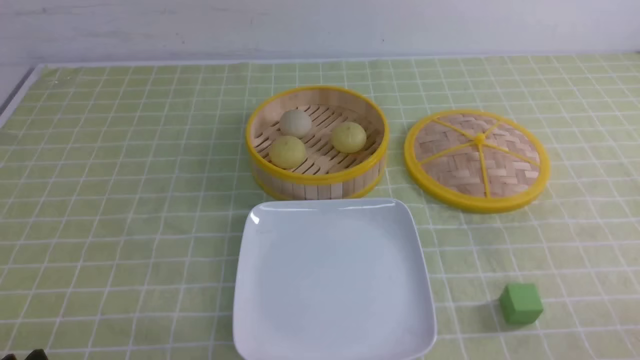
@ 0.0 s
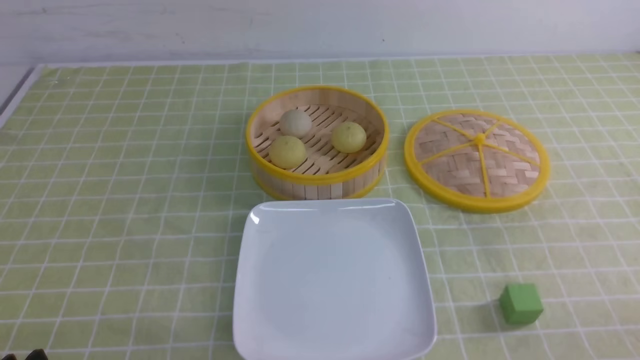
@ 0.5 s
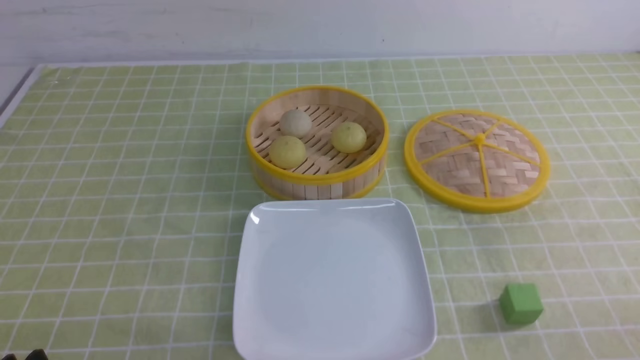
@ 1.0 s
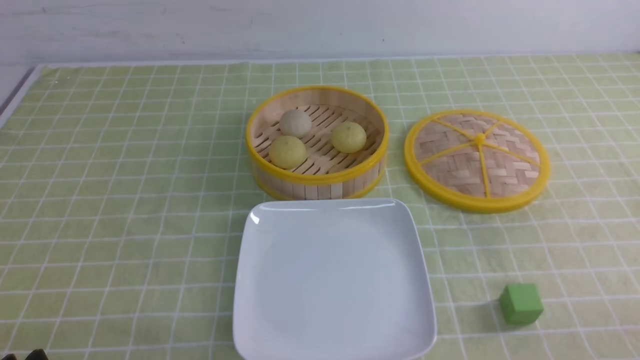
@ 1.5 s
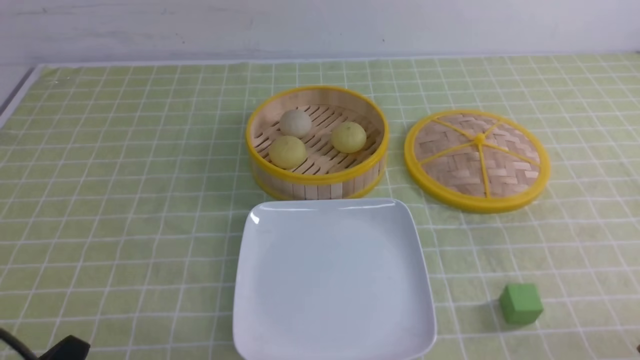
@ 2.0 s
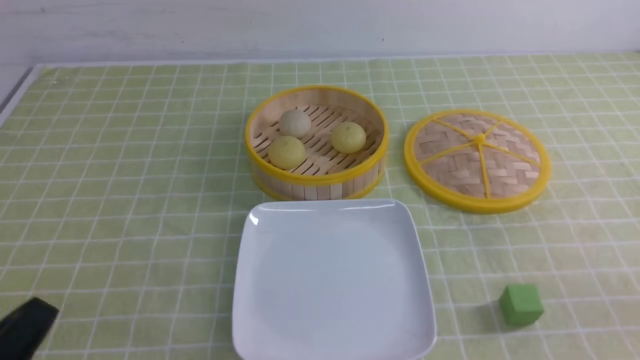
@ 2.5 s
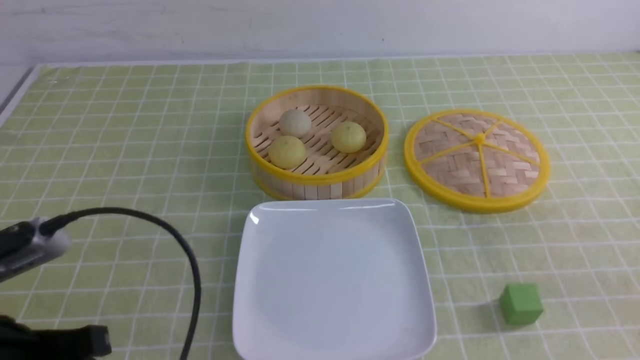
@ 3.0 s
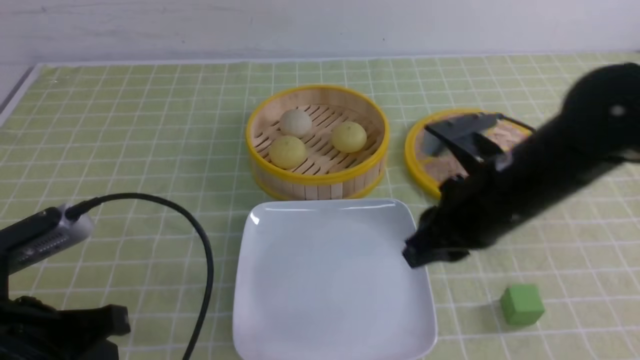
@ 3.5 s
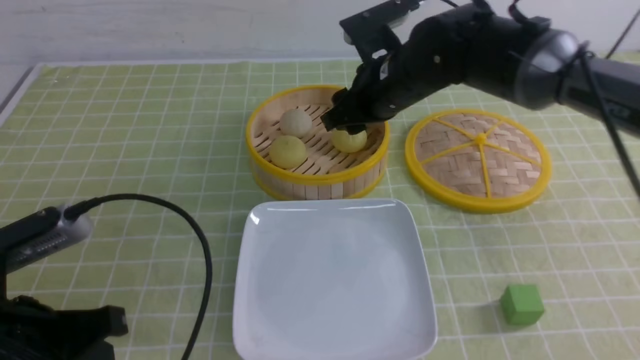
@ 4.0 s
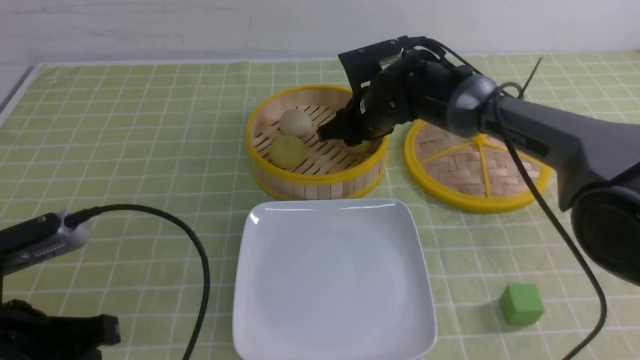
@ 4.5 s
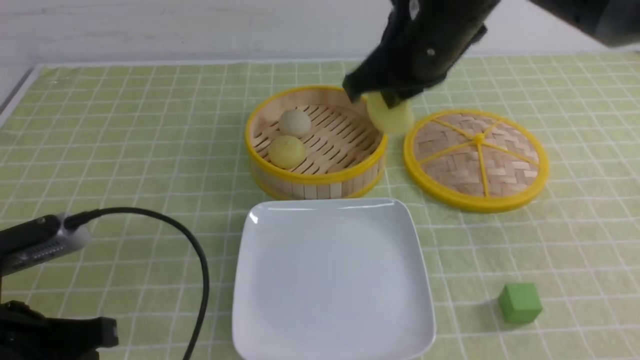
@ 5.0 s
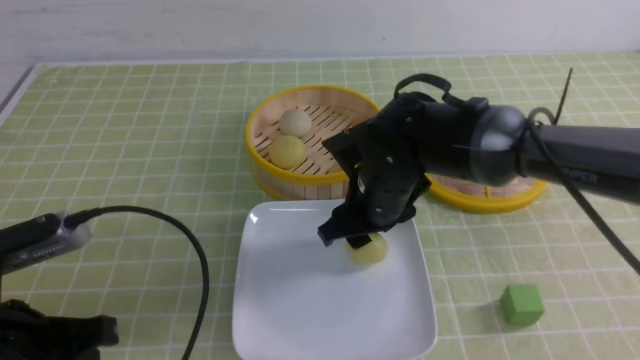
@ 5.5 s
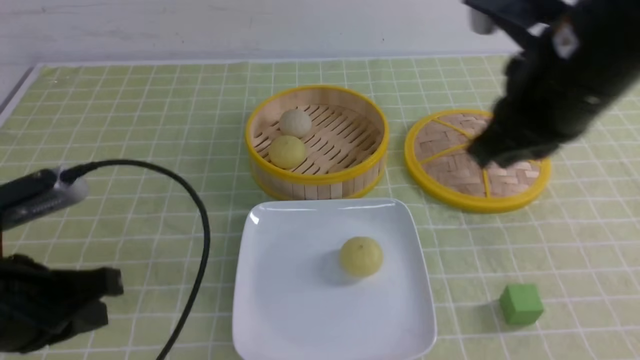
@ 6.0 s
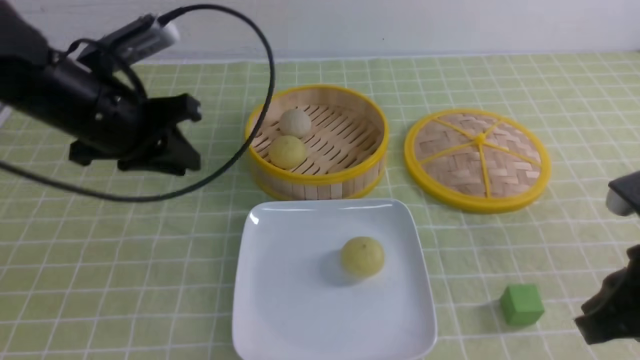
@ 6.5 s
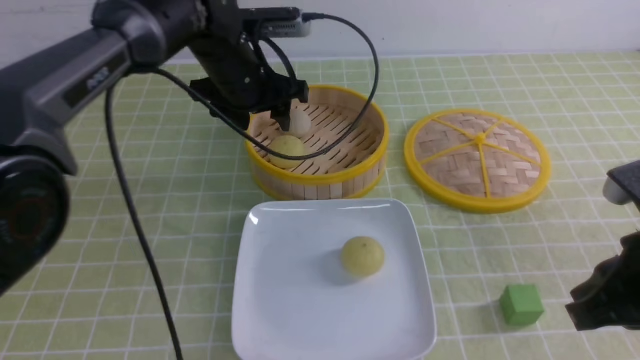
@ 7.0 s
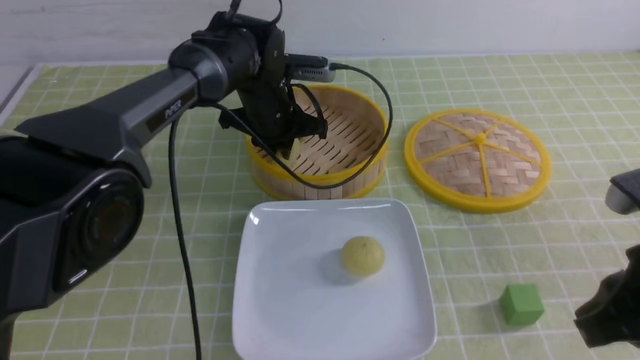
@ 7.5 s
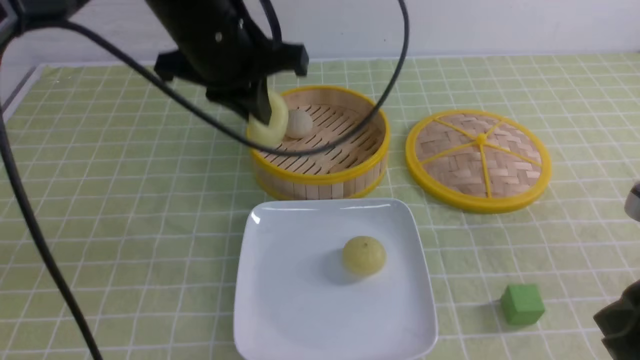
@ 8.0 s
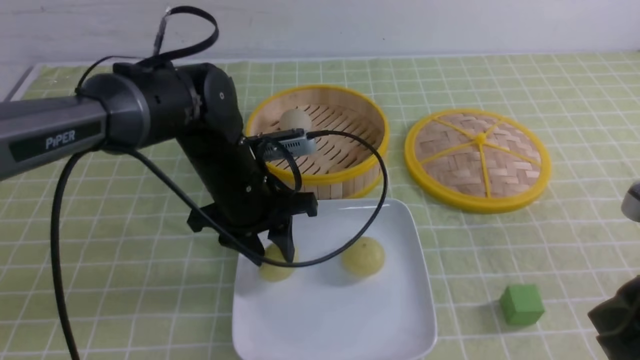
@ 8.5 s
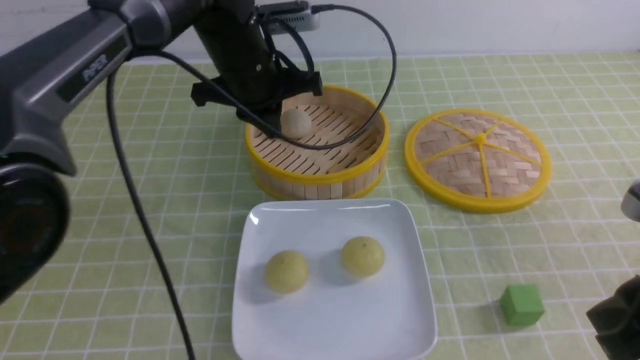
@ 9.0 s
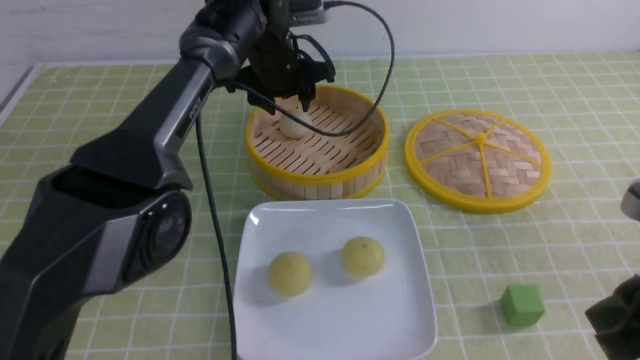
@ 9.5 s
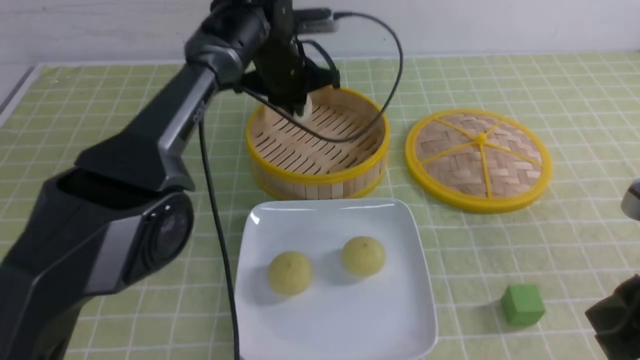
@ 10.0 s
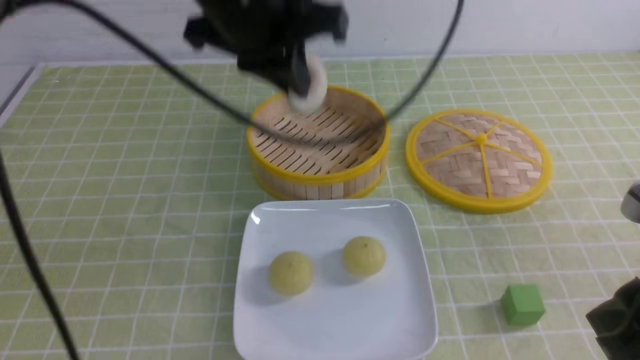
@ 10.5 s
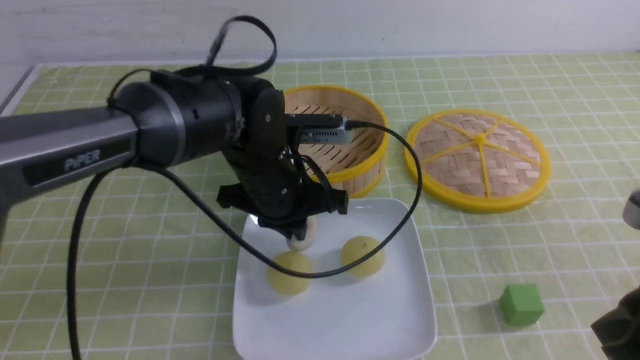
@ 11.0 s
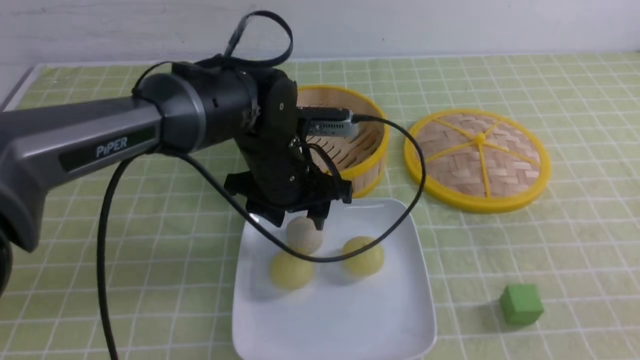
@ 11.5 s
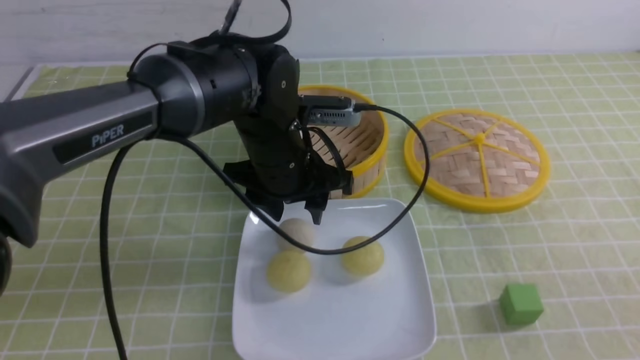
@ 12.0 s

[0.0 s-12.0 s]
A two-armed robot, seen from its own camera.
Step, 0.0 to 4.5 s: use the right arm to grab the steamed stuffed bun that is closest to it.
Step, 5.0 to 5.5 s: use the right arm to put the steamed stuffed bun into the plate.
Step, 6.0 to 7.5 s: use the left arm to grab the steamed stuffed bun that is closest to it.
Step, 8.0 to 8.5 s: use the left arm to put the steamed stuffed bun into the plate.
Step, 9.0 to 9.5 s: use the left arm to grab the steamed stuffed bun that is closest to it.
Step, 10.0 to 11.0 s: use the left arm to put the steamed stuffed bun into the plate.
2.0 to 4.0 s: The left gripper heads forward and upward, covering approximately 10 cm, and closes. Meanwhile the right gripper travels forward and to the left by about 40 cm, and opens.
4.0 to 6.0 s: The right gripper heads backward, upward and to the right, covering some 25 cm, and closes up.
6.0 to 8.0 s: The right gripper moves backward, to the right and downward, approximately 15 cm. Meanwhile the left gripper travels forward and to the right by some 25 cm, and opens and closes again.
8.0 to 10.0 s: The left gripper moves forward, approximately 15 cm, and opens, then closes again.
10.0 to 12.0 s: The left gripper shifts about 15 cm backward and downward, and opens up, while the right gripper is displaced backward and to the right by about 15 cm.

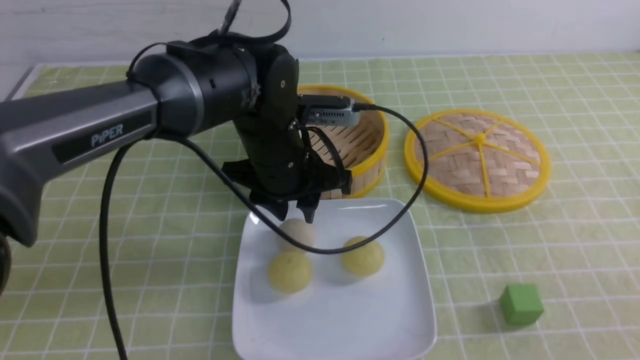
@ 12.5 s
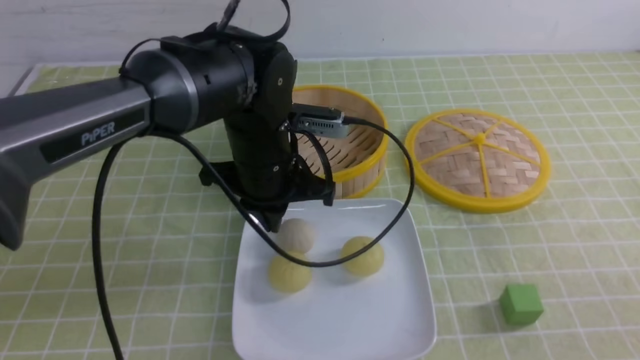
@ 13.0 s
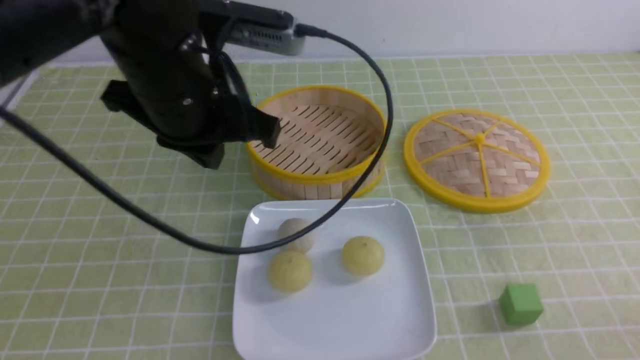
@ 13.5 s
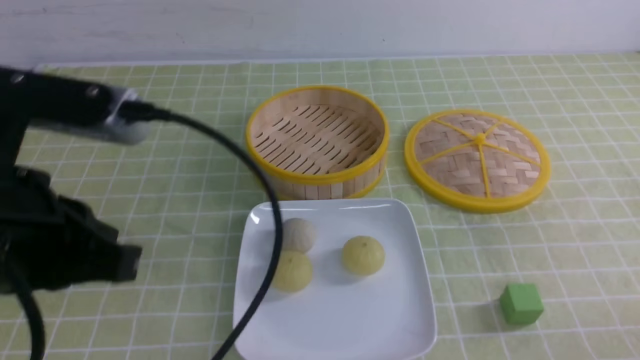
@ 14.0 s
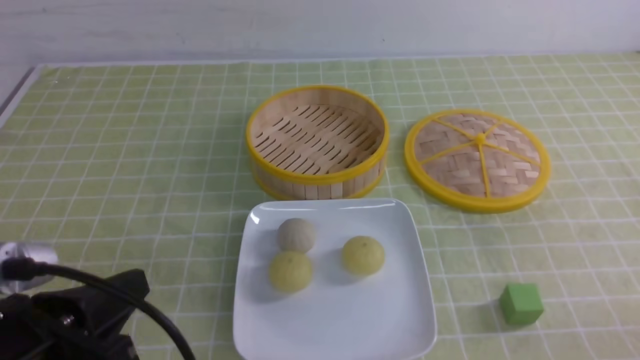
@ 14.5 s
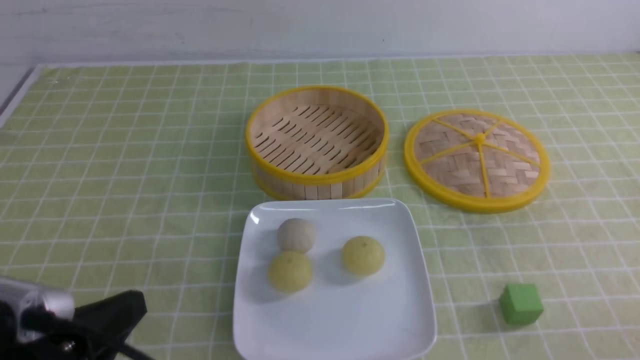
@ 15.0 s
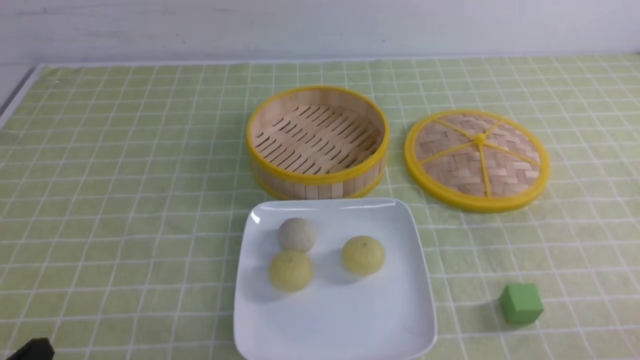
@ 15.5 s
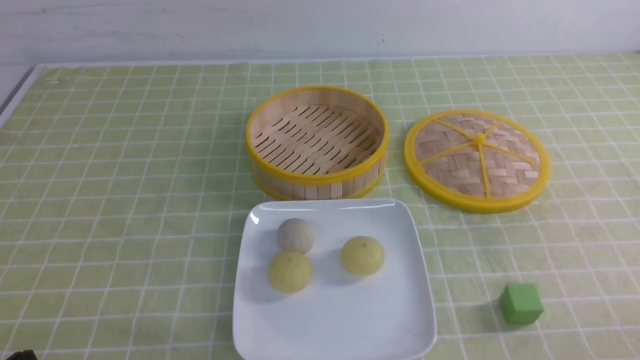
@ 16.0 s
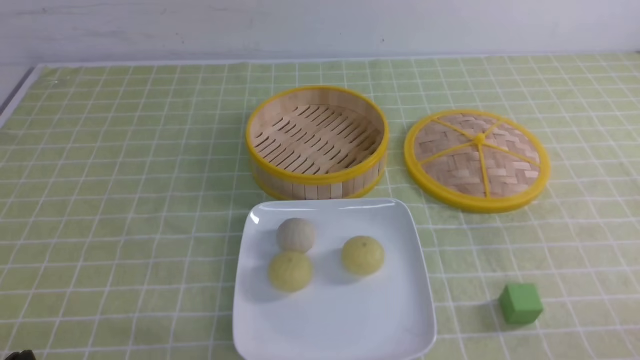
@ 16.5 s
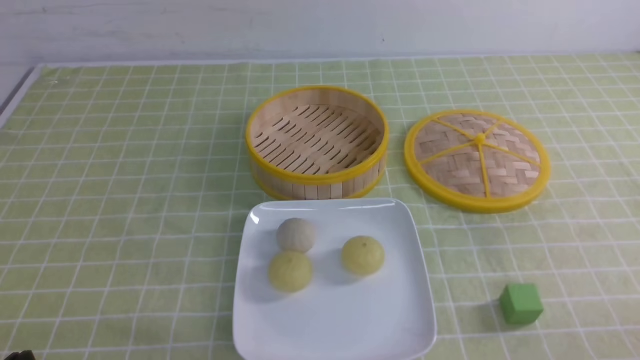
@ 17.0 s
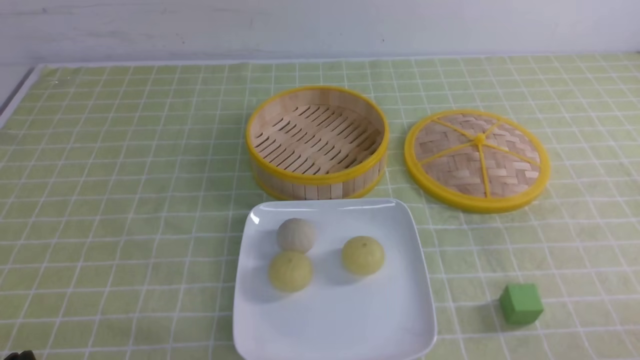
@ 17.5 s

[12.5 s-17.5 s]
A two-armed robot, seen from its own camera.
12.5 to 15.0 s: The left gripper is displaced backward and to the left by approximately 30 cm, and closes its fingers. Meanwhile the right gripper goes approximately 10 cm downward.
15.0 to 17.5 s: The left gripper moves downward, about 5 cm.

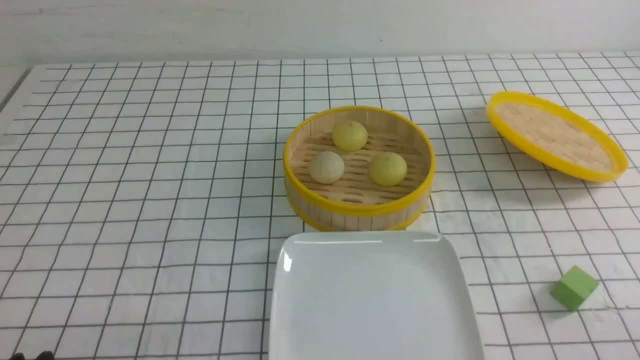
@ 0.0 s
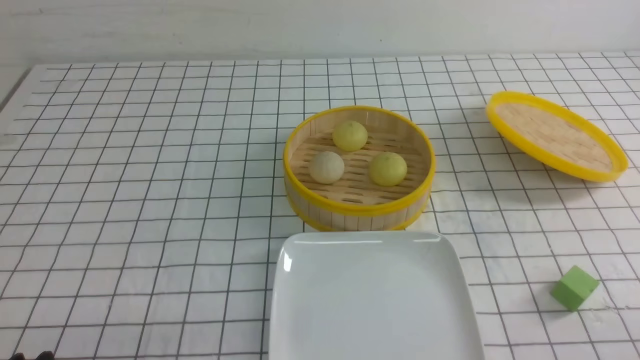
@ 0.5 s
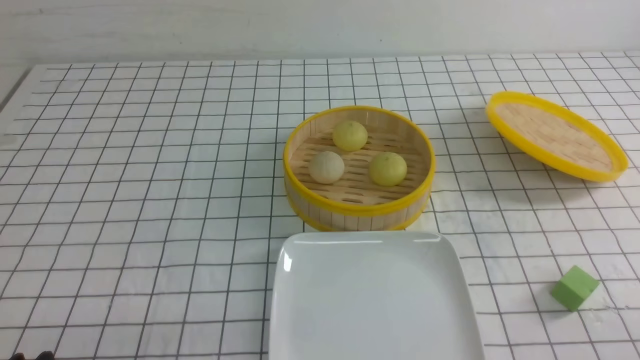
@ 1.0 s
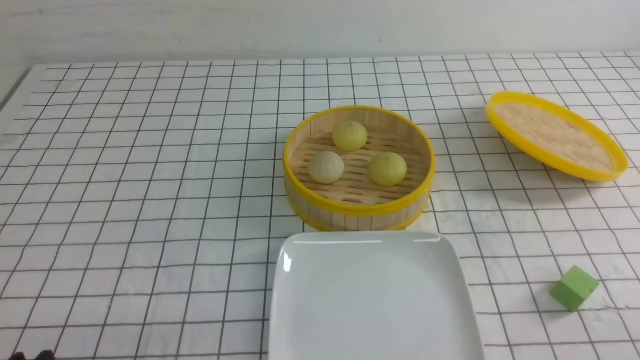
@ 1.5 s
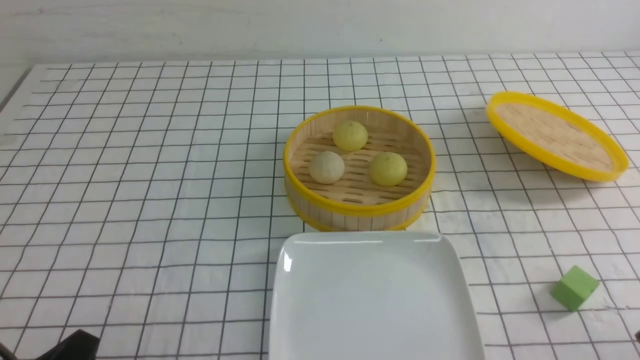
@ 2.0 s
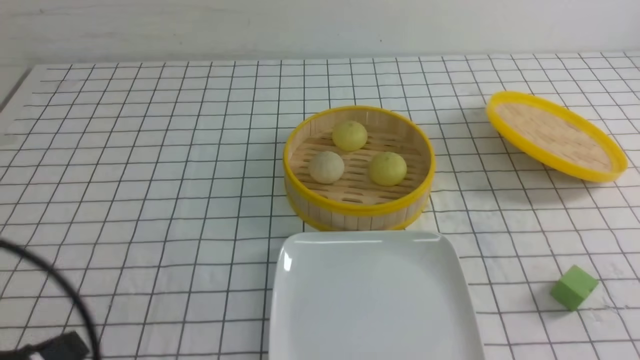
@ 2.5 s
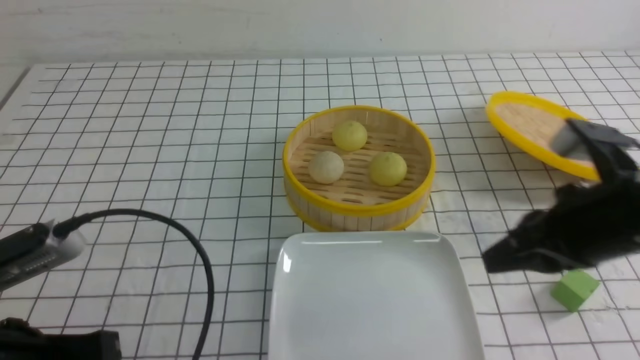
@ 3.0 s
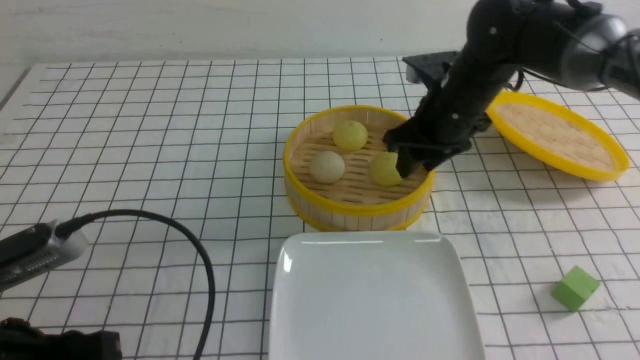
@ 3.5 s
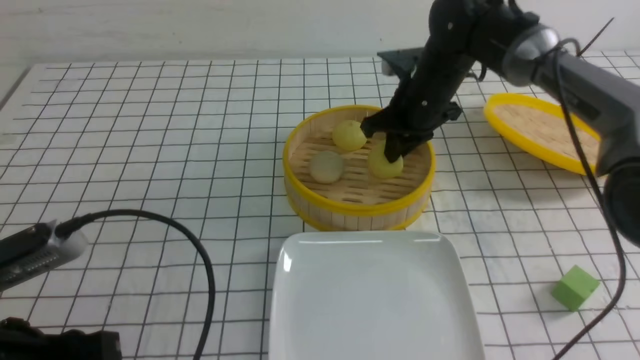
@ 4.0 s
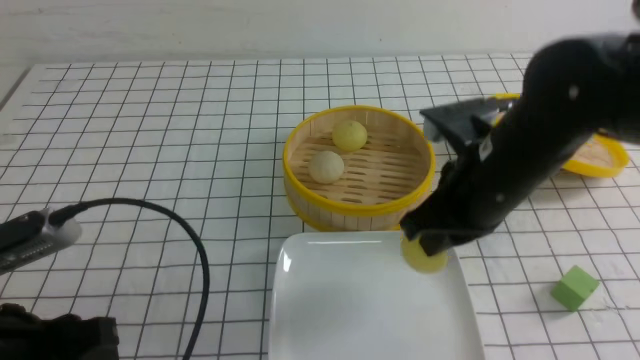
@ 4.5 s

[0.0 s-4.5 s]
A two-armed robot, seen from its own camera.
Step, 0.0 to 4.0 s: use the right arm to grab the steamed stuffed bun that is closest to it.
2.0 to 4.5 s: The left gripper is displaced upward and forward by approximately 10 cm, and closes and opens again. The right gripper is displaced forward and to the left by roughly 30 cm, and closes.
